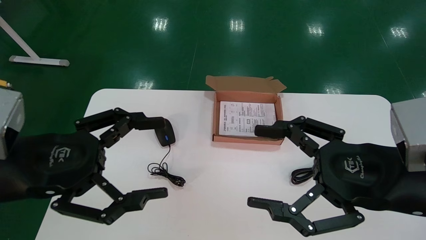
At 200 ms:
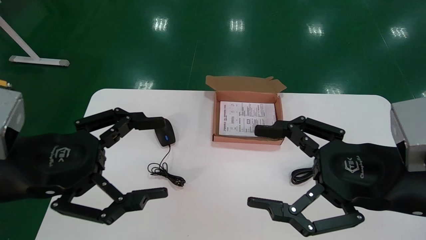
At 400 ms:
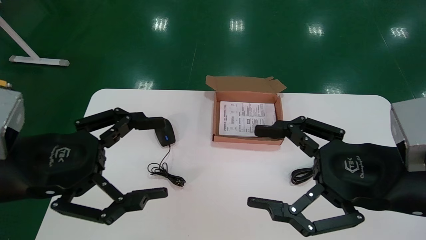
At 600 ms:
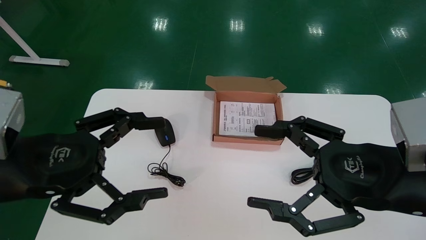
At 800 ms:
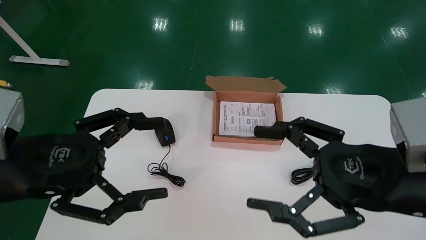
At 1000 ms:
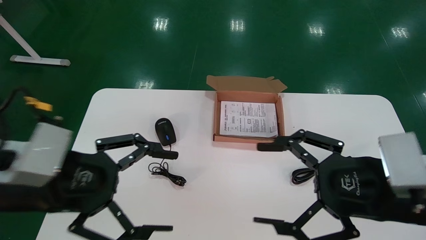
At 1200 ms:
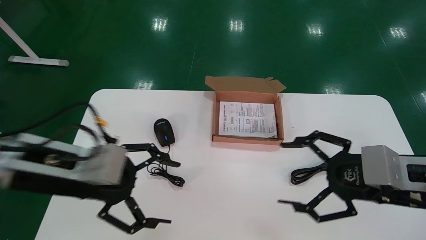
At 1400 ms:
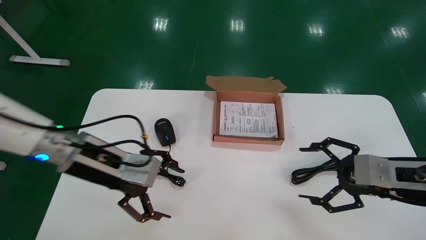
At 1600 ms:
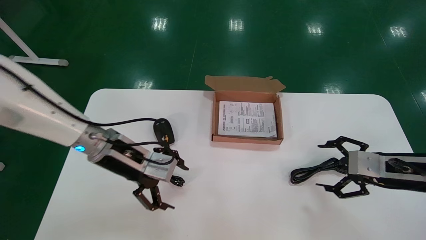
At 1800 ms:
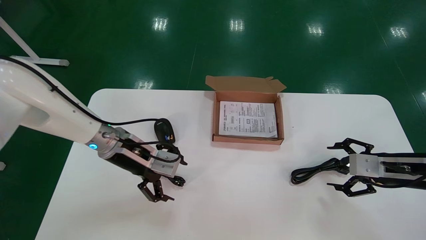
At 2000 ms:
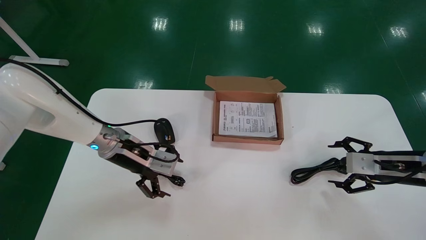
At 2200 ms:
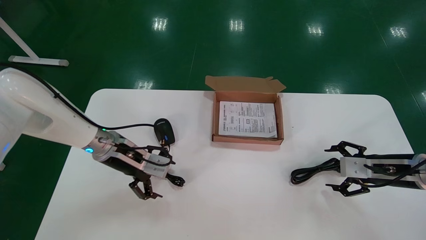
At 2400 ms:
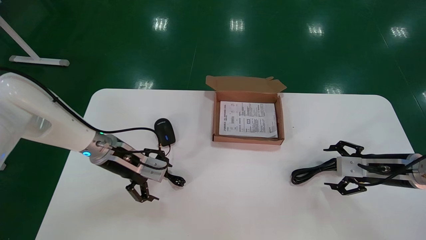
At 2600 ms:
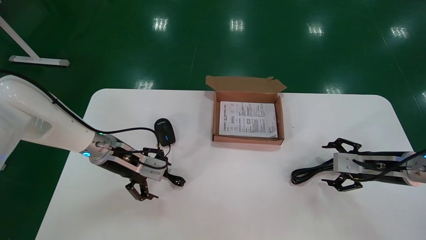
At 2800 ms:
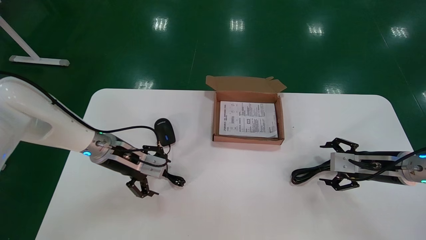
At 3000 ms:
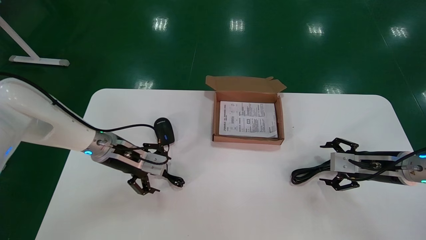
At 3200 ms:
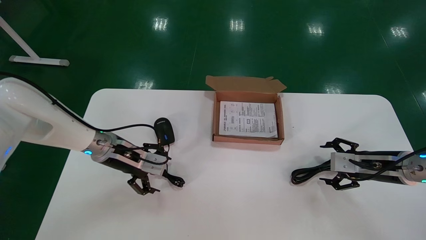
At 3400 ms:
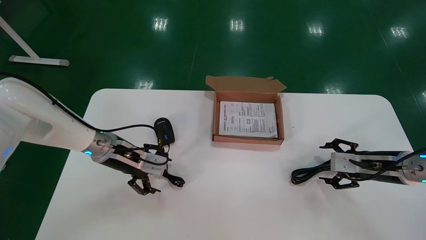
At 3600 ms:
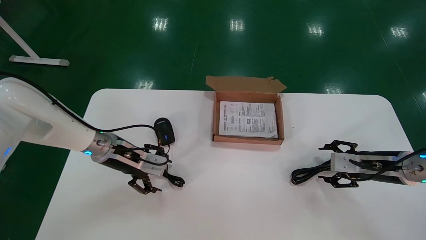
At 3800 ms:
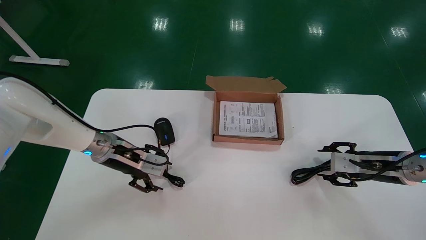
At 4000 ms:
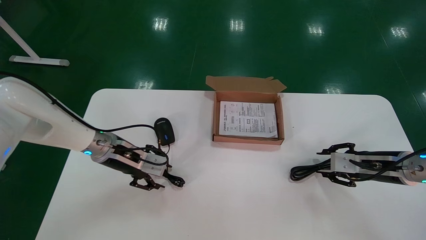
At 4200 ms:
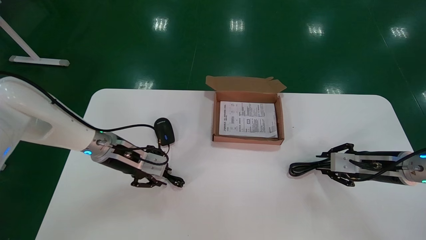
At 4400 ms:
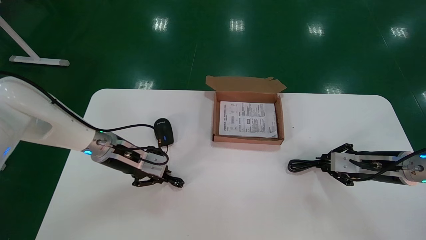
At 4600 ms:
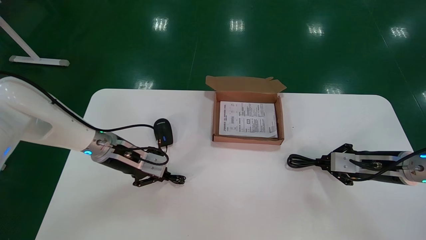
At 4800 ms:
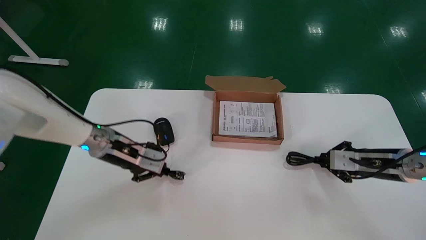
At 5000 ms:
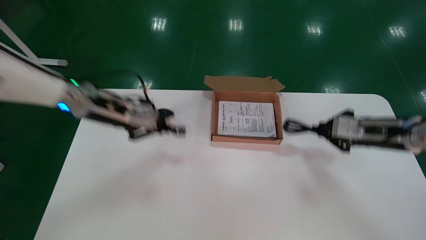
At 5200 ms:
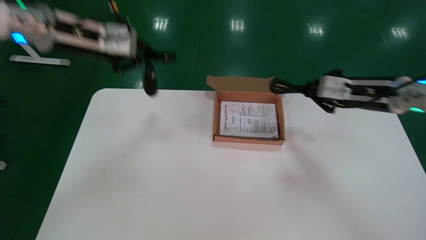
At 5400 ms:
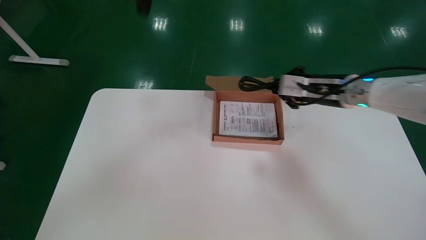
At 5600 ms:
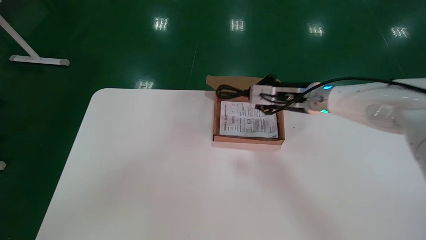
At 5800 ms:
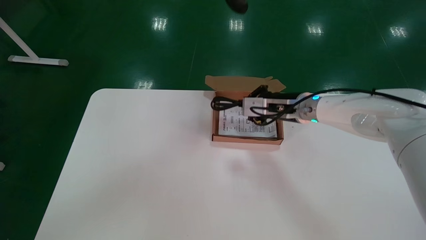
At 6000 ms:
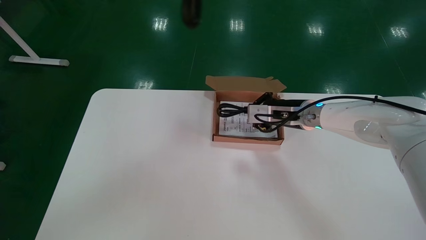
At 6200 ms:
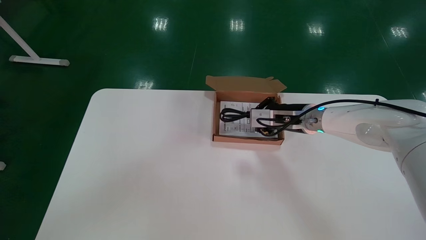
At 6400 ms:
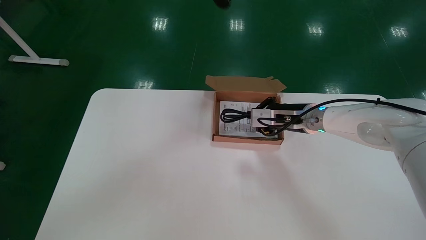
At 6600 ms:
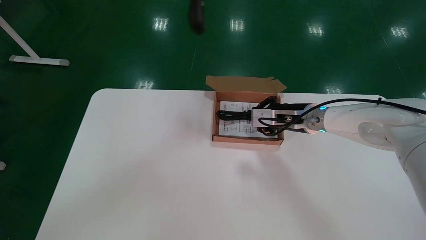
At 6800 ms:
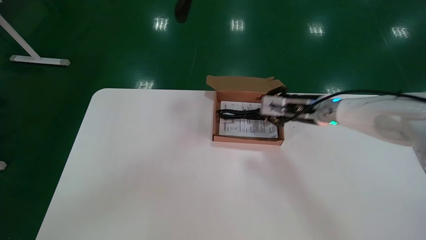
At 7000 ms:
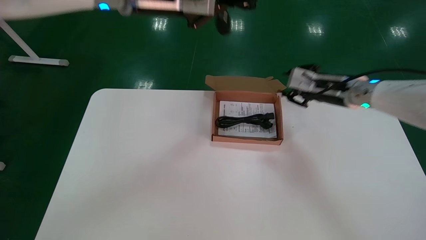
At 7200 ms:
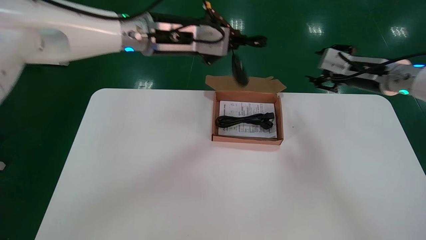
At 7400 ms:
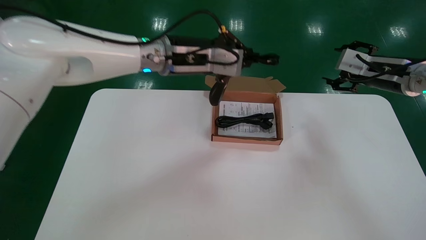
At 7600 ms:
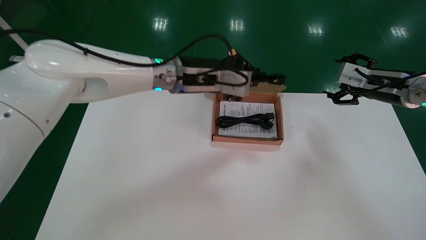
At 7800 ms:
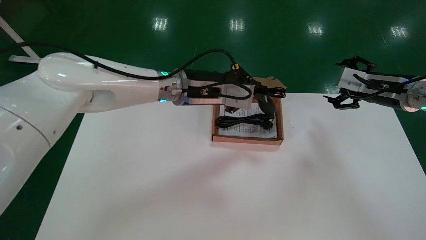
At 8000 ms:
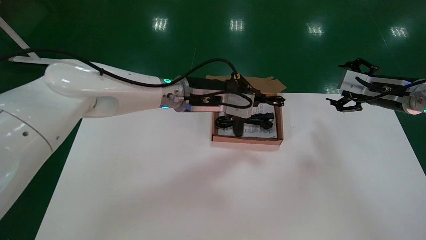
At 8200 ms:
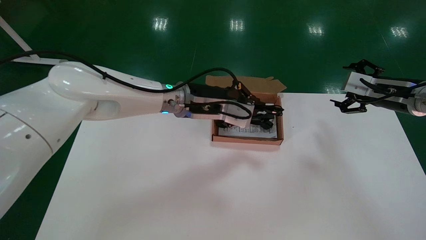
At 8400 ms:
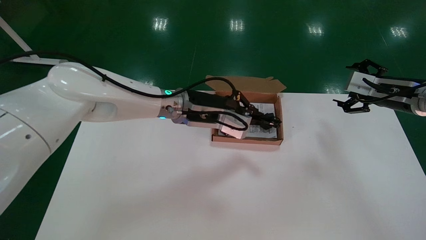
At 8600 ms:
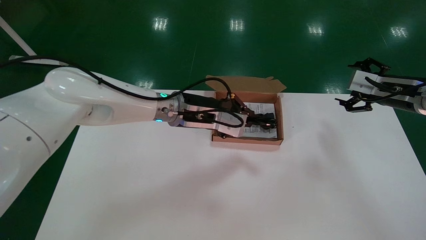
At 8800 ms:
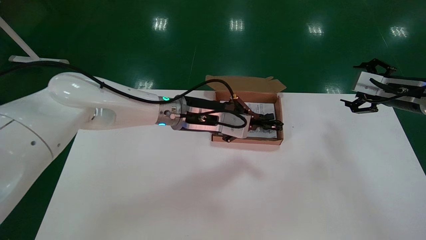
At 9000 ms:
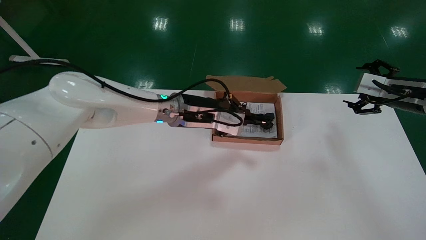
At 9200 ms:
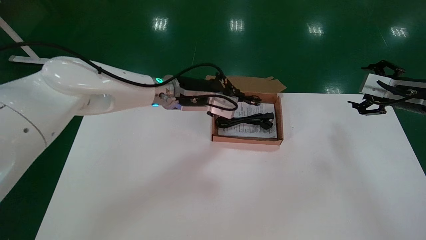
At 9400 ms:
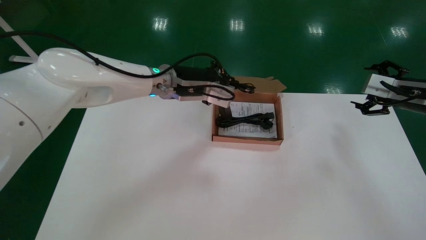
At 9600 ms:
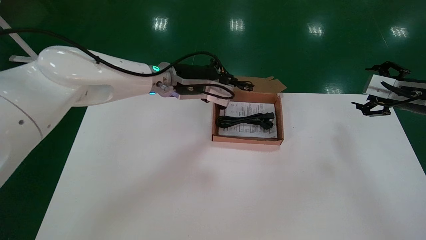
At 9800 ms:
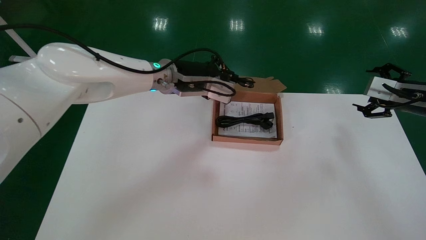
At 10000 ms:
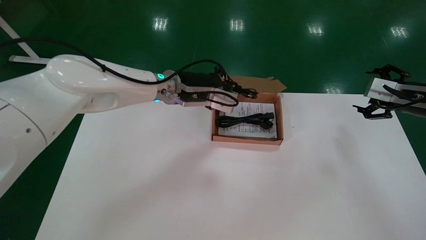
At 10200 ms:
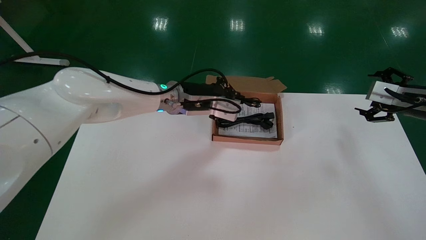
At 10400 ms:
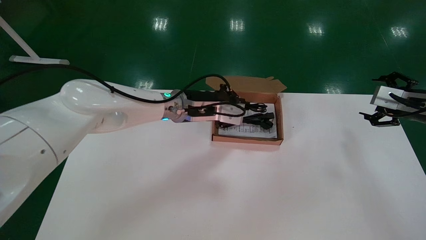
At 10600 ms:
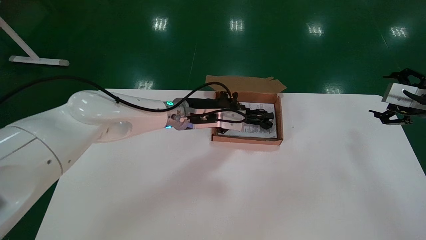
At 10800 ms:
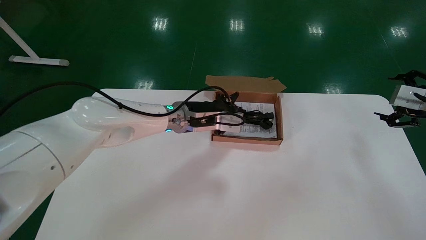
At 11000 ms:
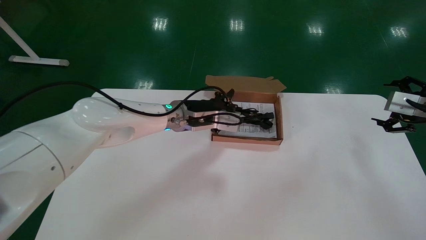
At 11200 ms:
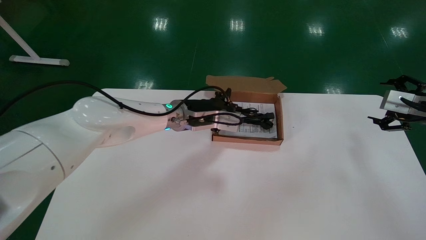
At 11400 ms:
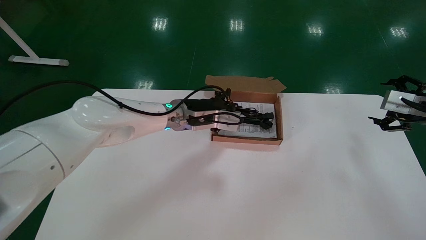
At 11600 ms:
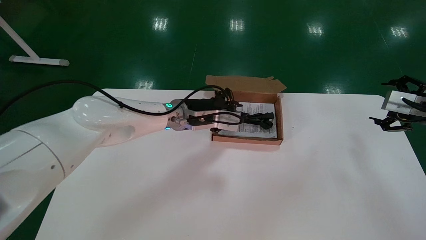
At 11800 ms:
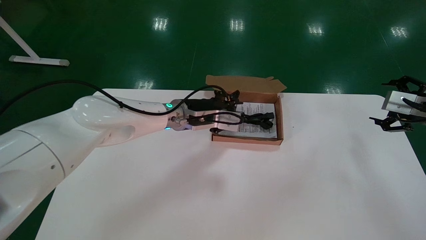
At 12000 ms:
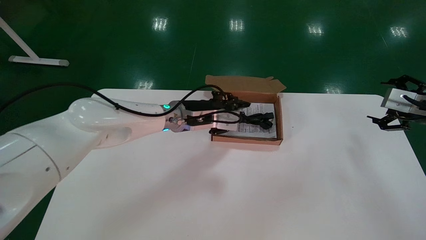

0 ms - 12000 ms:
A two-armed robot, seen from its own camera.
Step, 800 ms - 5200 ms: Simultaneously pick up the mouse and power cord from the accessory packaging area.
Step, 5400 ms - 11800 ms: Place the mouse and power cord into the box.
0 ms - 1600 ms: The left gripper heads forward, covering some 10 cm. The right gripper moves to the right, forward and downward, roughly 10 cm.
1600 ms - 3000 ms: The left gripper shifts approximately 15 cm forward and downward; the right gripper heads forward, downward and to the right, covering approximately 15 cm.
3000 ms - 4400 ms: The left gripper closes, while the right gripper closes its fingers.
4400 ms - 6000 ms: The left gripper moves upward, roughly 35 cm, while the right gripper goes approximately 25 cm to the left, upward and forward.
6000 ms - 7600 ms: The right gripper moves to the right, approximately 20 cm, and opens up, while the left gripper shifts approximately 25 cm downward and to the right.
7600 ms - 9000 ms: The left gripper goes about 5 cm downward; the right gripper ends up some 5 cm from where it was.
9000 ms - 10400 ms: The grippers stay close to where they were, moving slightly.
10400 ms - 12000 ms: The left gripper opens.

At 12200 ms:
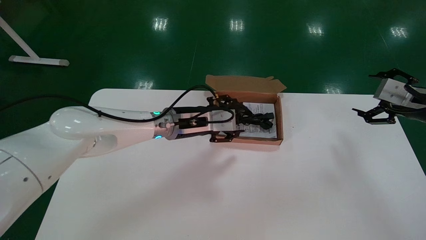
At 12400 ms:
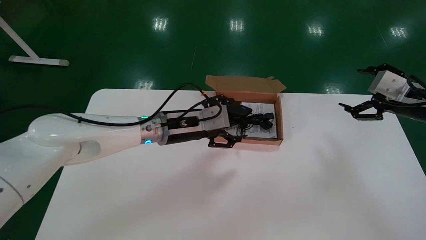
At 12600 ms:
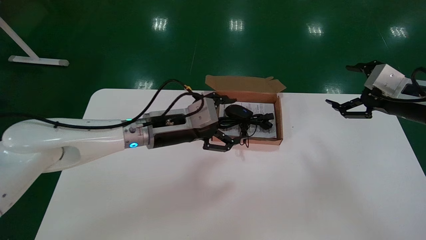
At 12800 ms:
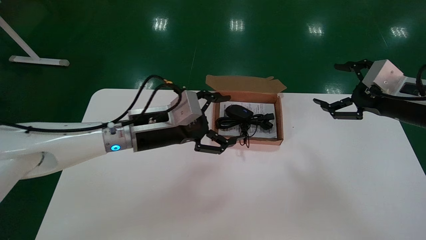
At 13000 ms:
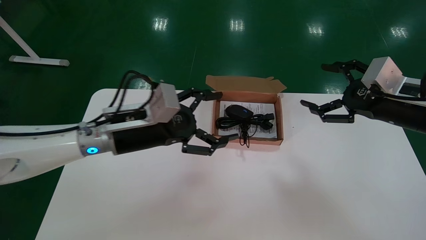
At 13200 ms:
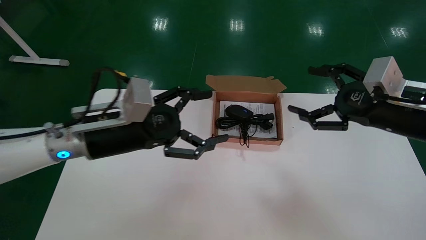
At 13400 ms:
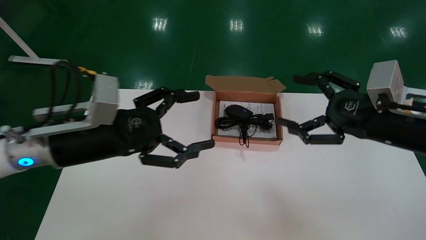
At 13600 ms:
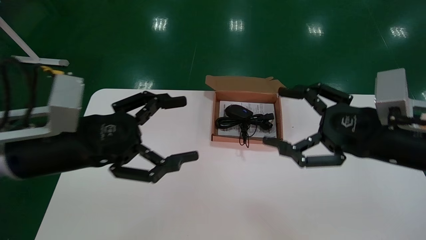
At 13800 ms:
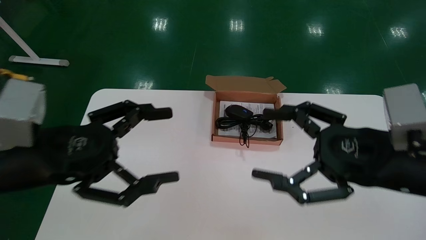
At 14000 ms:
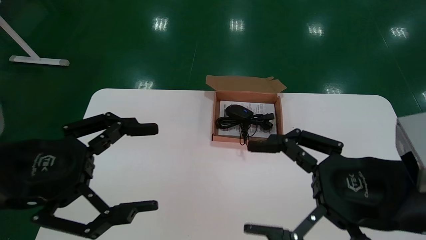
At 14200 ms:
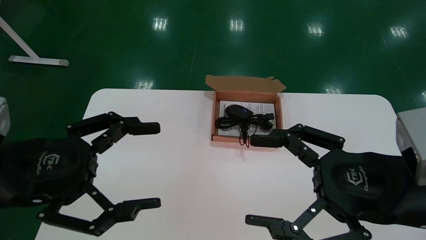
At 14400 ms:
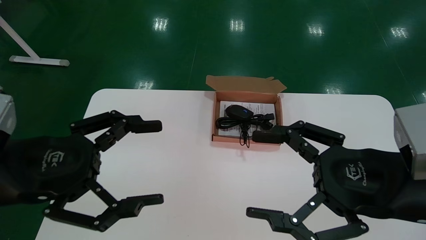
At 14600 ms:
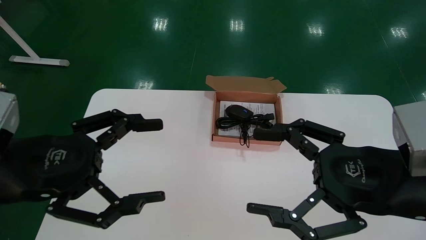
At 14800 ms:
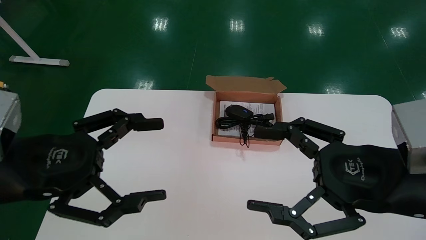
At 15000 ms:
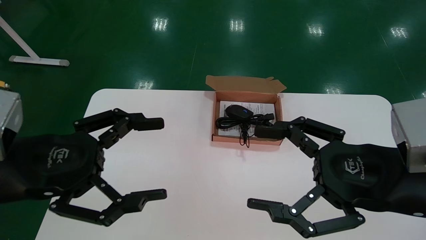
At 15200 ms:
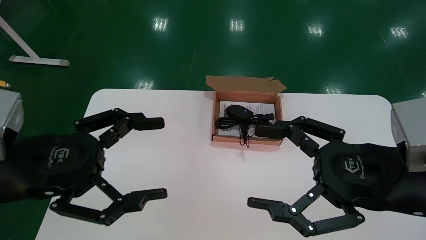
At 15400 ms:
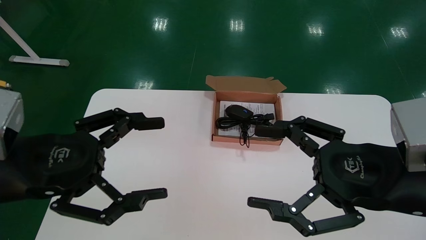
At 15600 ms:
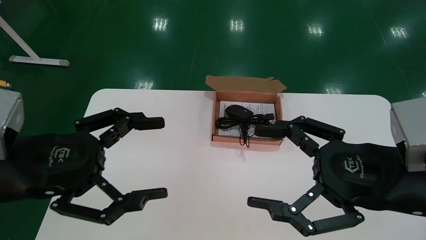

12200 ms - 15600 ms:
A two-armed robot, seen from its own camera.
12200 ms - 13800 ms: The right gripper moves to the left and backward, some 25 cm. The left gripper moves backward and to the left, about 30 cm, and opens.

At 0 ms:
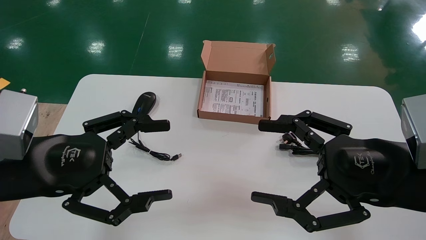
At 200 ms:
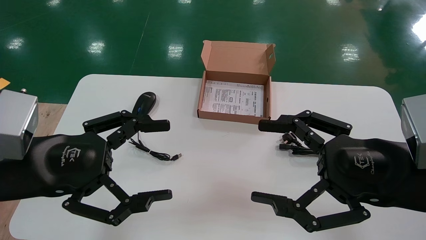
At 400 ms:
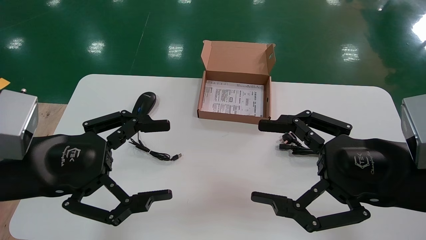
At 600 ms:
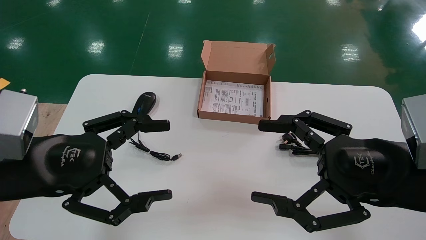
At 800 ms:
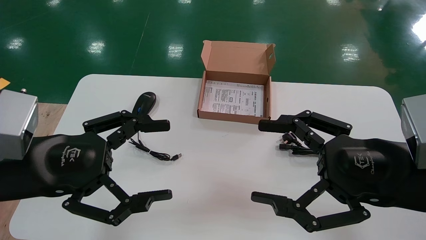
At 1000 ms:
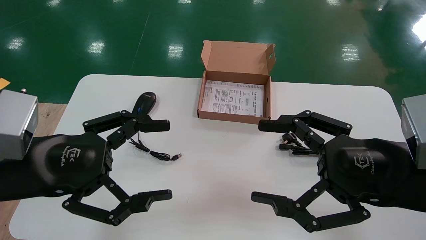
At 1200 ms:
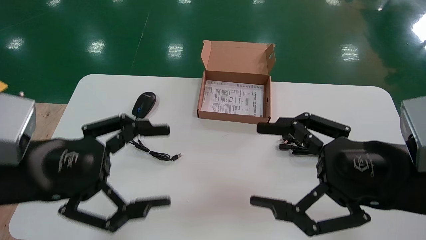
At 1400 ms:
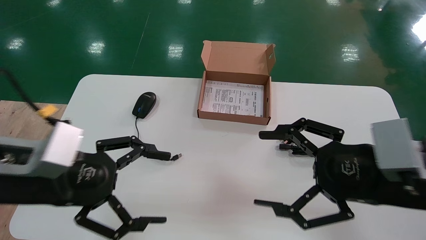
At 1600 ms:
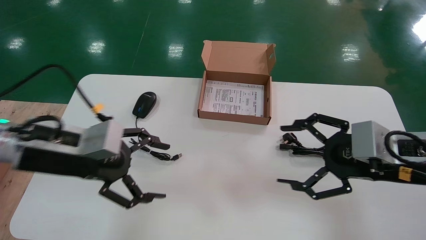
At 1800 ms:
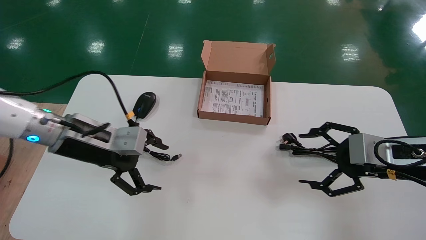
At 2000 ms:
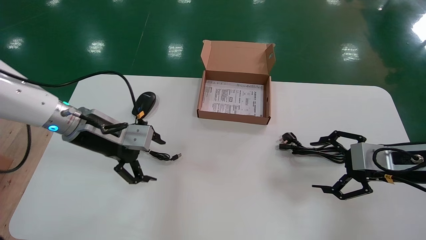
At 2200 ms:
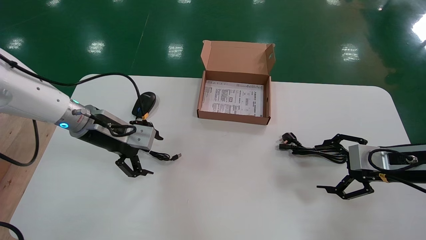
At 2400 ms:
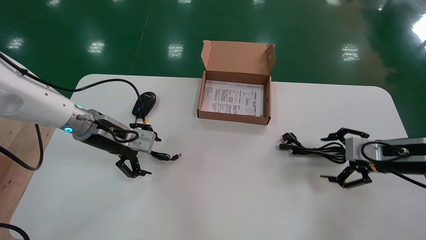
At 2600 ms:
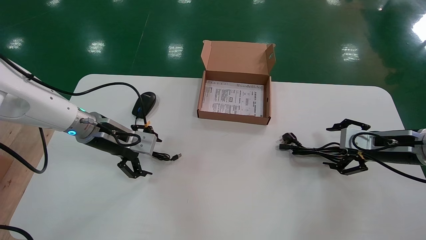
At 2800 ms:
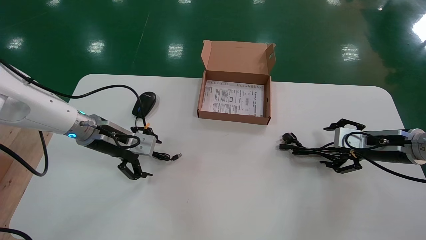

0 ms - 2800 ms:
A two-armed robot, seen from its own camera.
1400 ms - 2800 ms: The left gripper moves forward, some 20 cm; the right gripper moves forward and to the right, approximately 20 cm.
